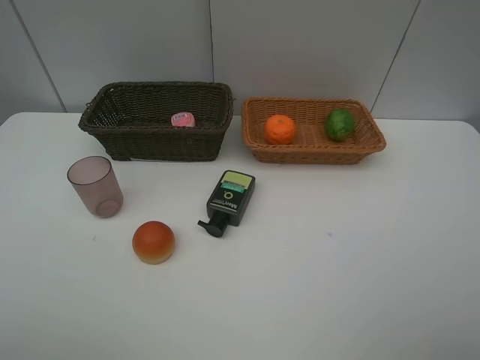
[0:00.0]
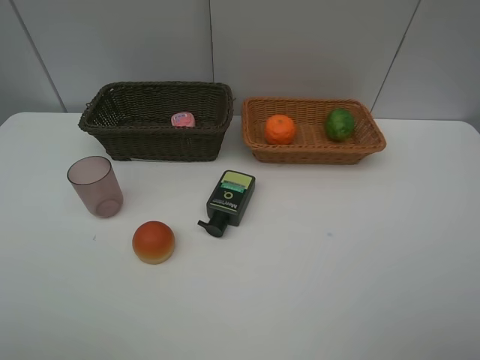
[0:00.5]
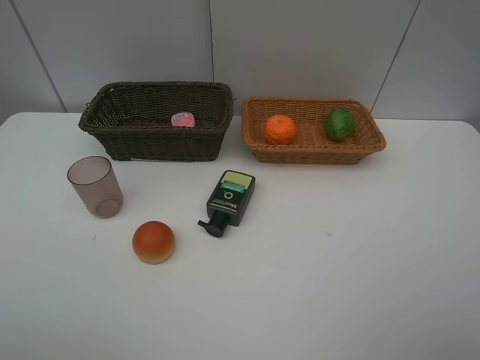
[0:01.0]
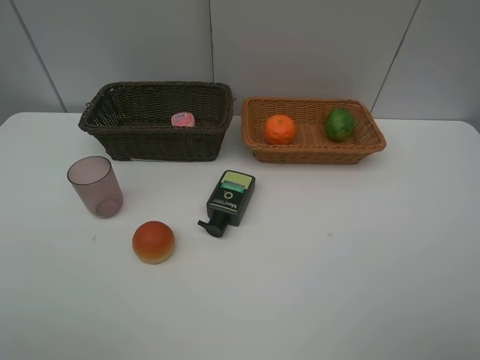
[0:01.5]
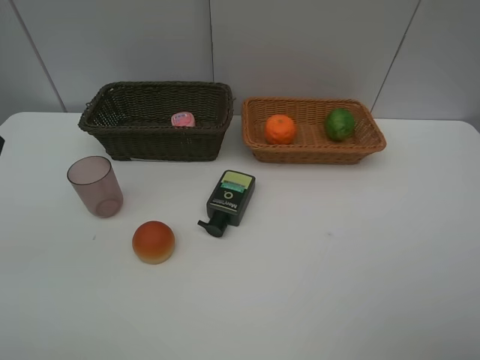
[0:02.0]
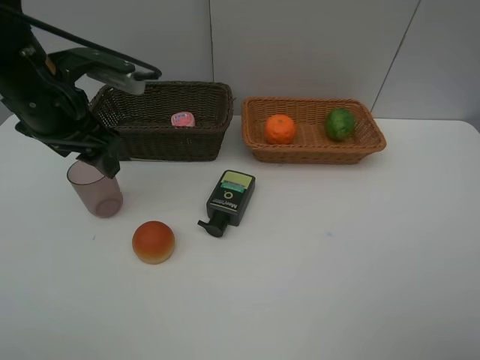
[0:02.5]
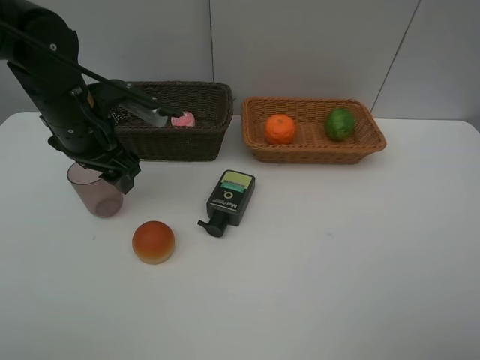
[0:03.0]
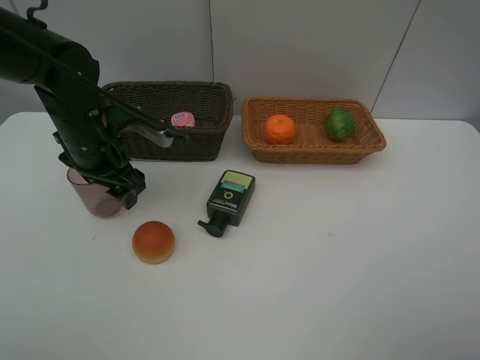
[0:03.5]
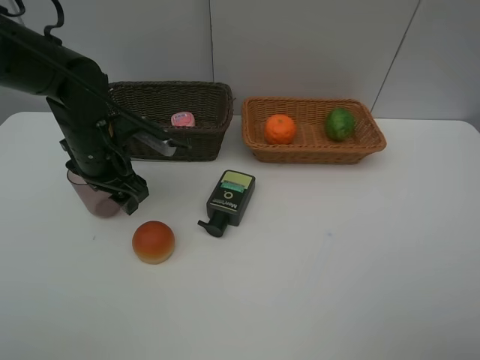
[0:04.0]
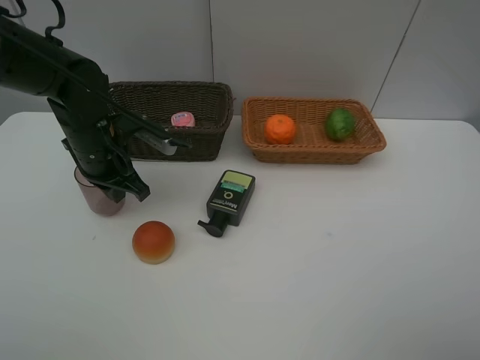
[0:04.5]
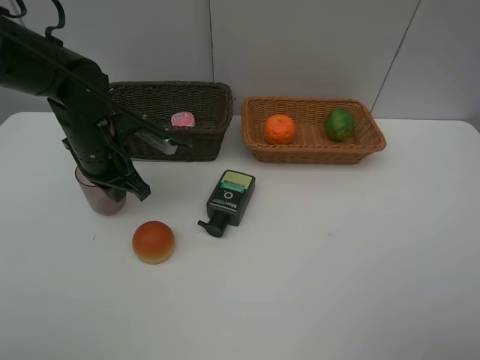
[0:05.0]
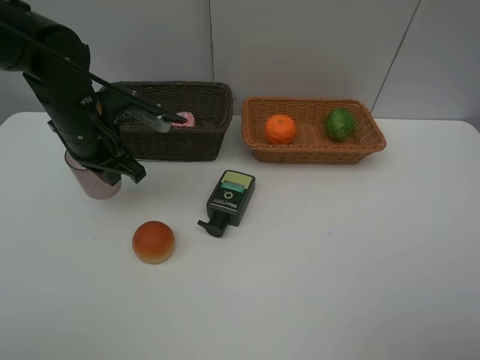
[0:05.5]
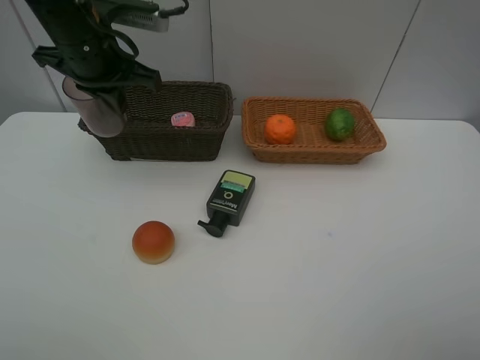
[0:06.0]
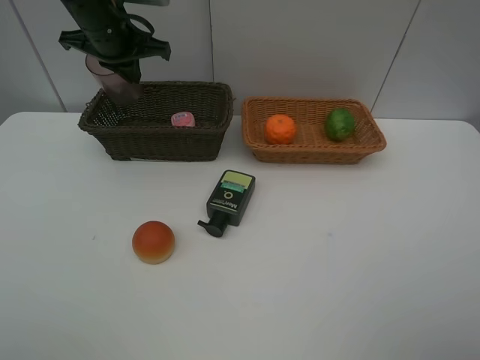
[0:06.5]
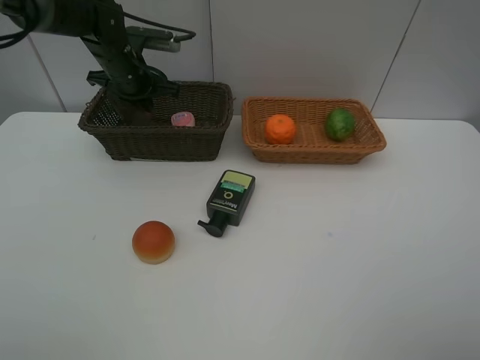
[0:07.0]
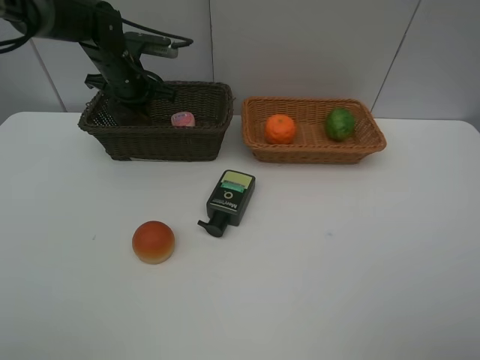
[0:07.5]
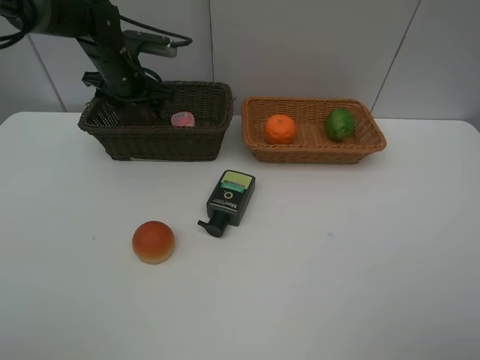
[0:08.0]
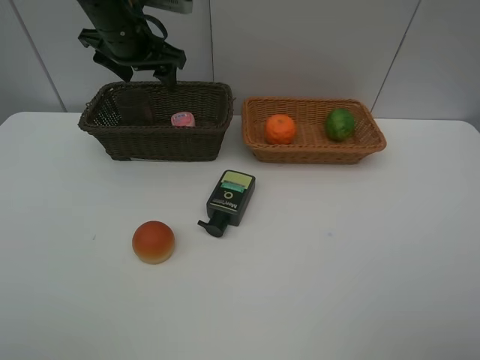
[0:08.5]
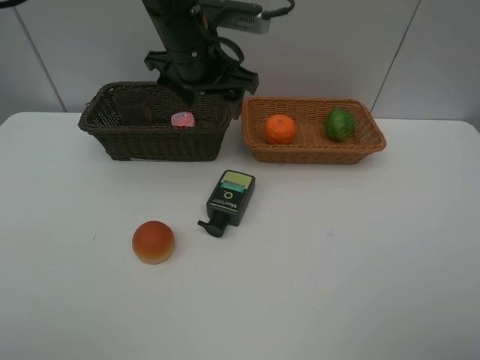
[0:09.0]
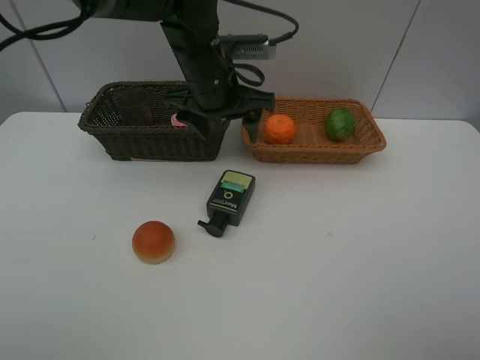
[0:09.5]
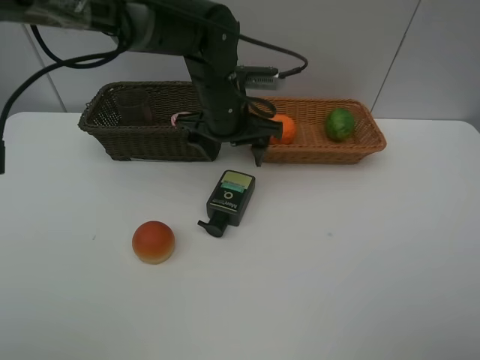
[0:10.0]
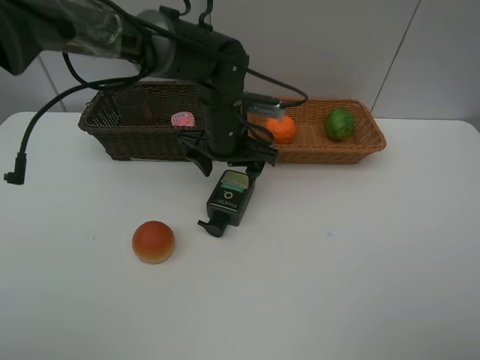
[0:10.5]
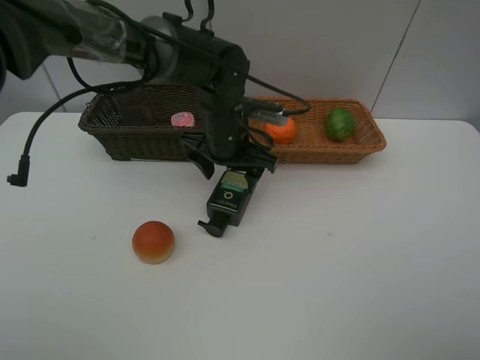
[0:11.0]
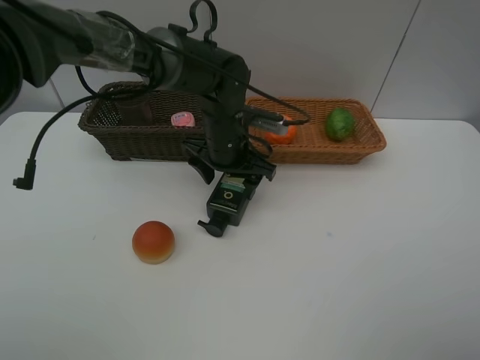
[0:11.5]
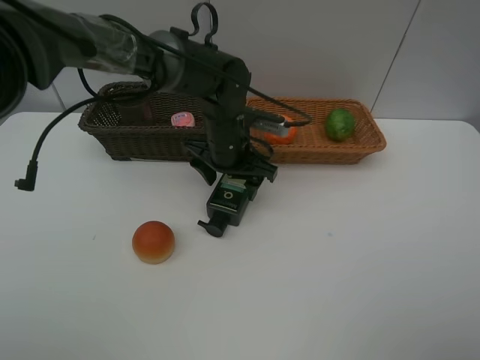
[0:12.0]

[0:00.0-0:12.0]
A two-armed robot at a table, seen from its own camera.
Task of the whole recording: place multiple objects separately in different baskets.
0:02.0 to 0:04.0: The left gripper is displaced downward, forward and to the right by roughly 25 cm.
0:04.0 to 0:06.0: The left gripper shifts approximately 15 cm upward, and closes its fingers.
0:06.0 to 0:08.0: The left gripper shifts roughly 15 cm forward and downward, and opens up.
0:08.0 to 0:10.0: The left gripper heads to the right and backward, covering about 20 cm.
0:10.0 to 0:12.0: The left gripper is displaced downward by about 5 cm.

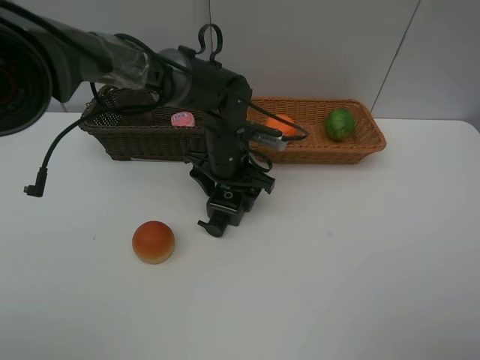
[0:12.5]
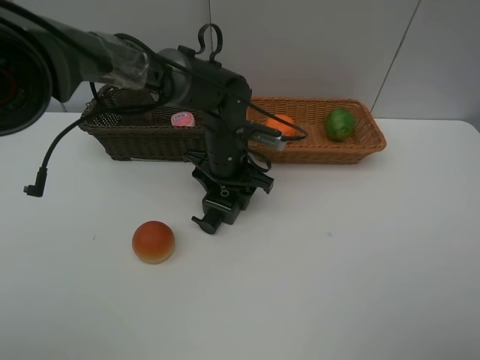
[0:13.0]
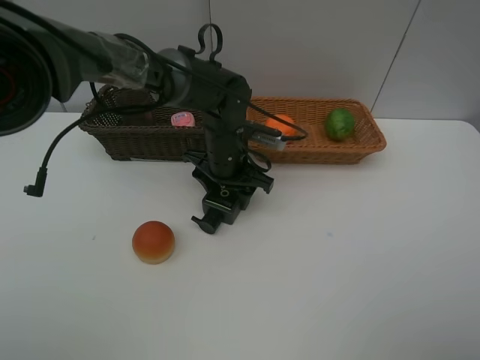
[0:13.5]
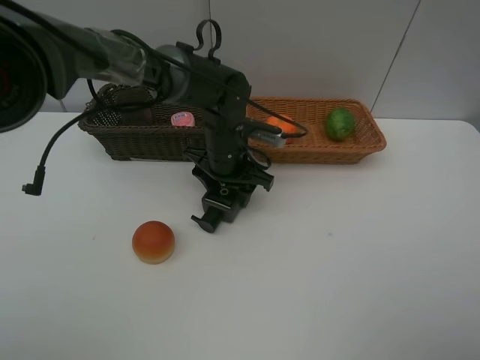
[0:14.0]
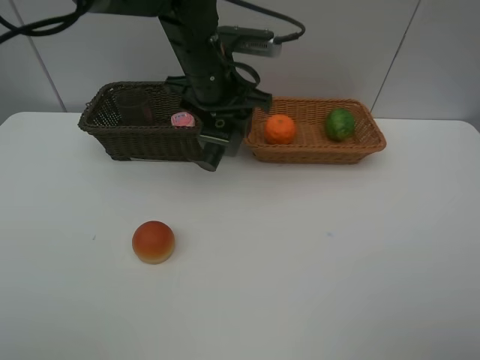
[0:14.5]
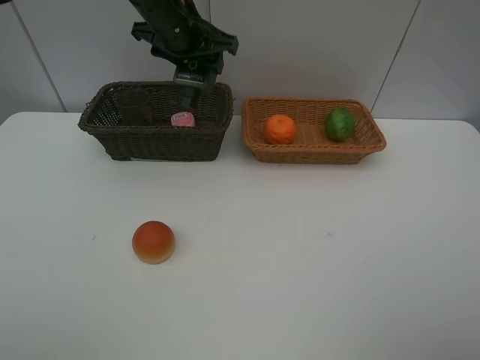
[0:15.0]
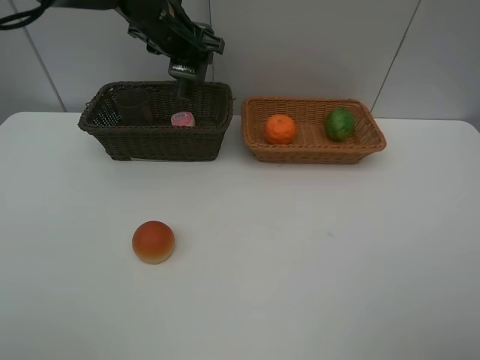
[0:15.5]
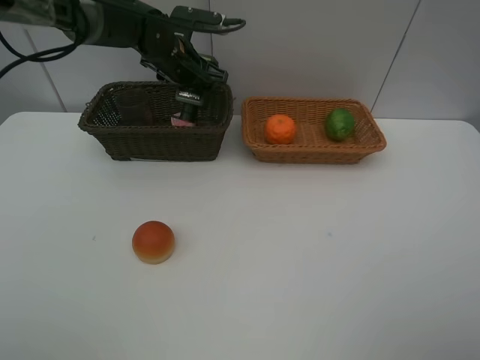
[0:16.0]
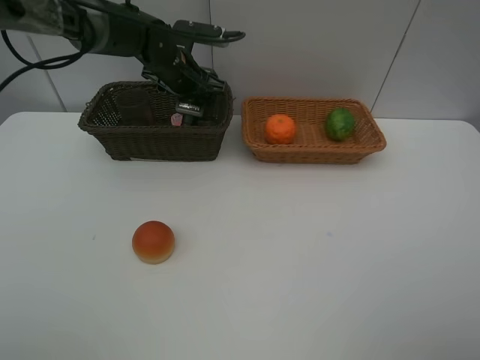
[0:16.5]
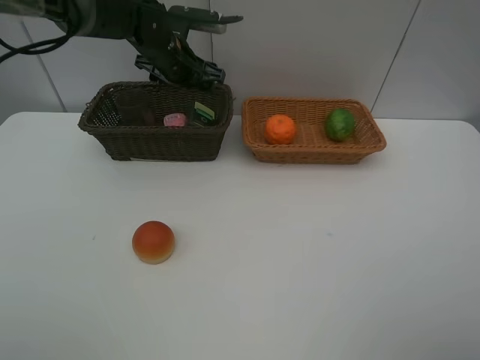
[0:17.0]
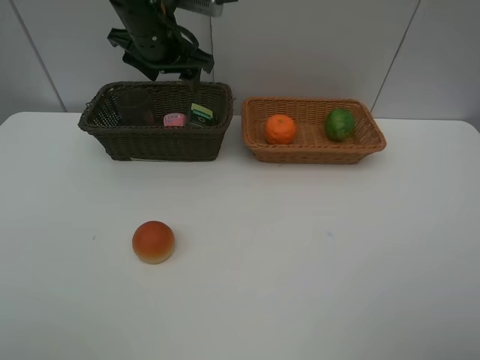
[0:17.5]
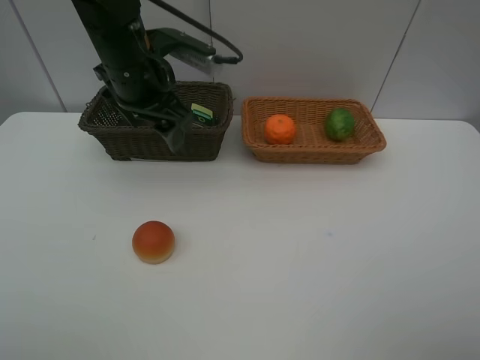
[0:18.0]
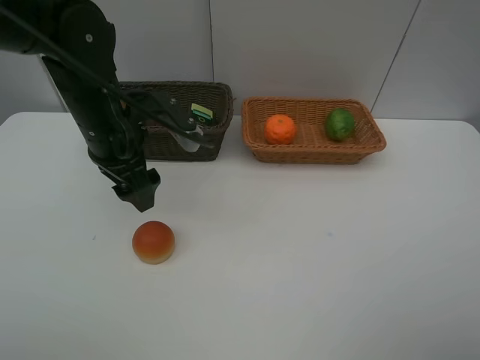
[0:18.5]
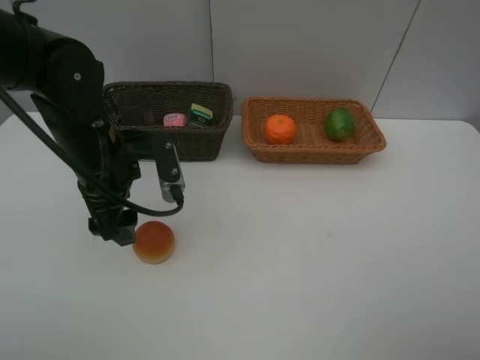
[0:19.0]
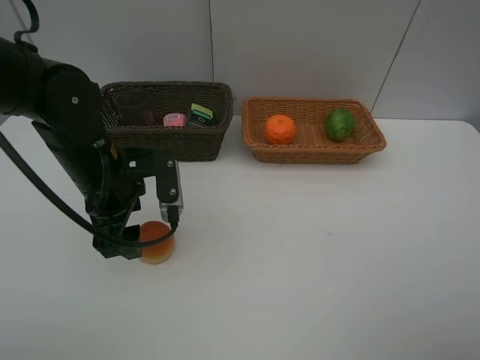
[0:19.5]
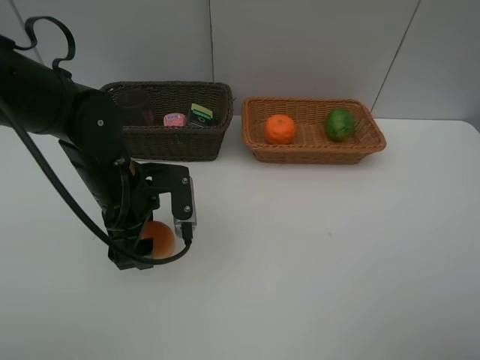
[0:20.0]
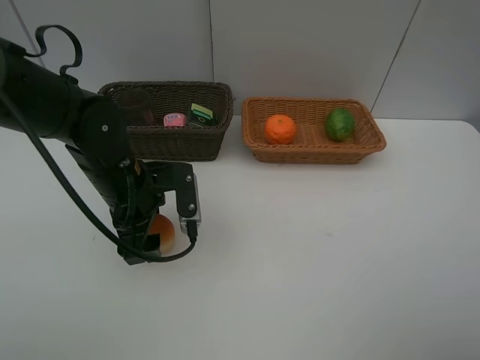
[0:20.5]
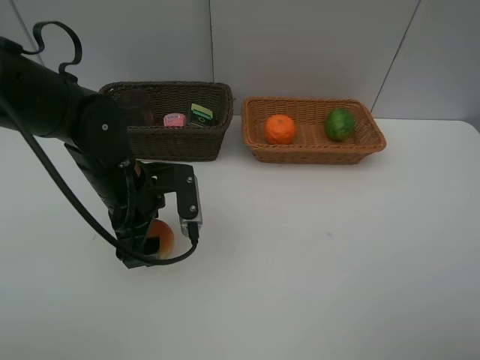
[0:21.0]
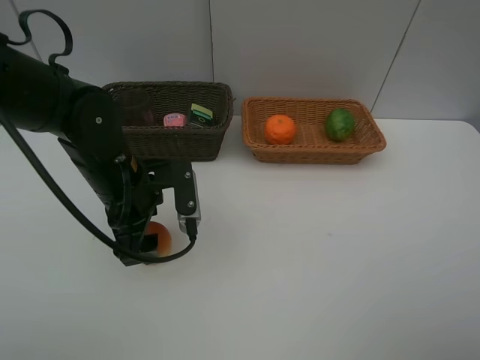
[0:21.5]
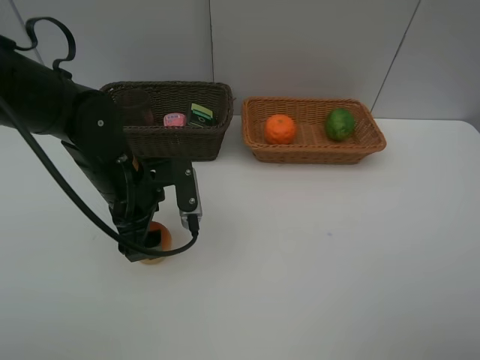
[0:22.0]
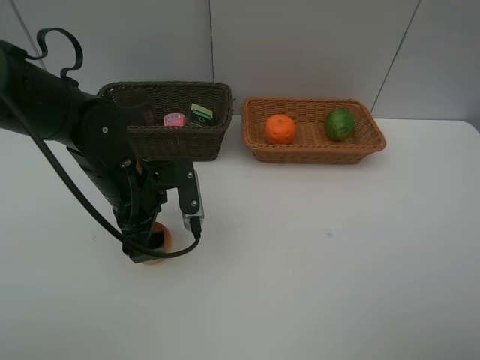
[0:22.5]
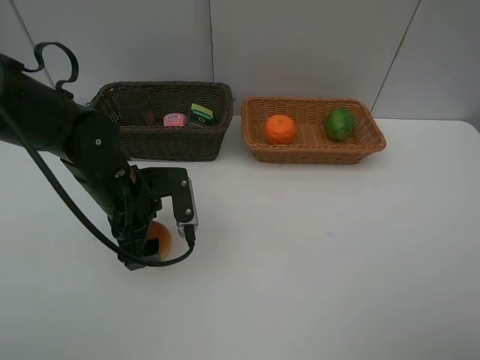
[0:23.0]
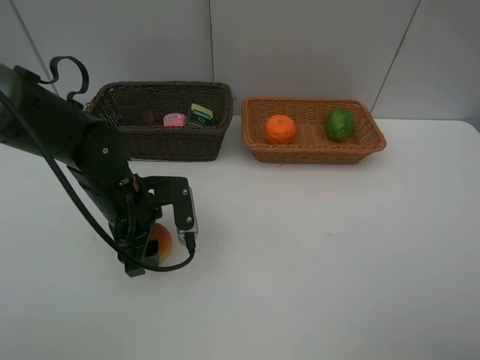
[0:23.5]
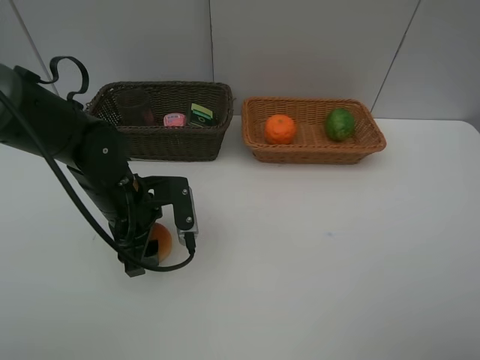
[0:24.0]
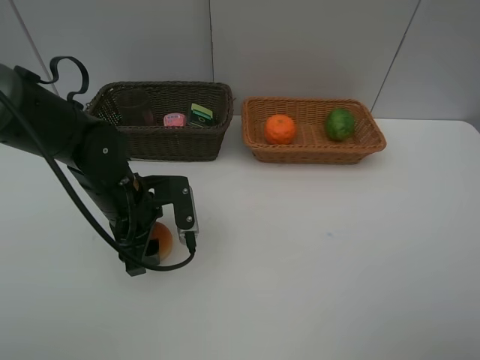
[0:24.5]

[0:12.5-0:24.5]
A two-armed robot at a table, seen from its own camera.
Task of the whole recording: place multiple objects separately in different baskets.
0:12.5 to 0:14.5: The left gripper is displaced upward by about 15 cm.
0:14.5 to 0:16.5: The left gripper goes approximately 15 cm forward, to the left and downward.
0:16.5 to 0:18.5: The left gripper heads backward, covering roughly 20 cm.
0:18.5 to 0:20.5: The left gripper shifts some 5 cm downward.
0:20.5 to 0:24.5: There are only small adjustments of the grippers.

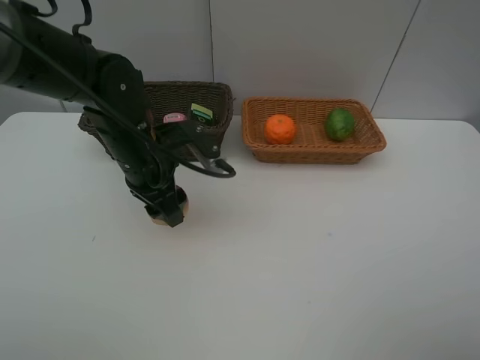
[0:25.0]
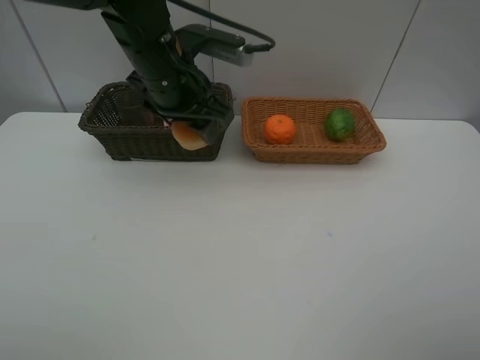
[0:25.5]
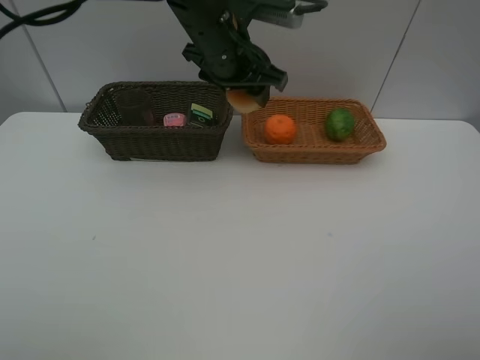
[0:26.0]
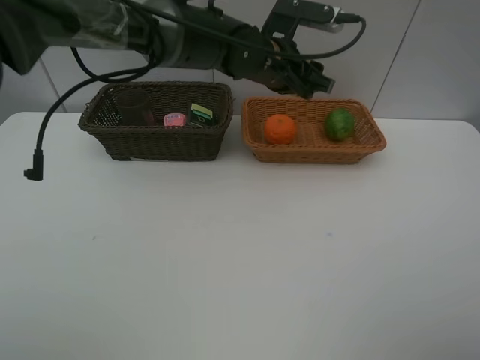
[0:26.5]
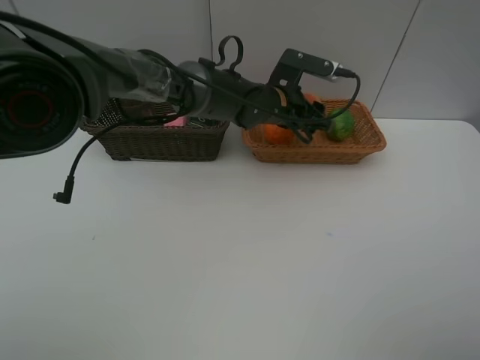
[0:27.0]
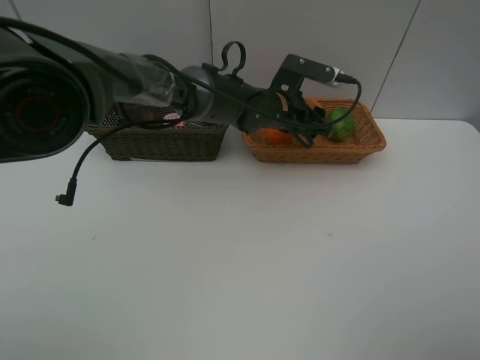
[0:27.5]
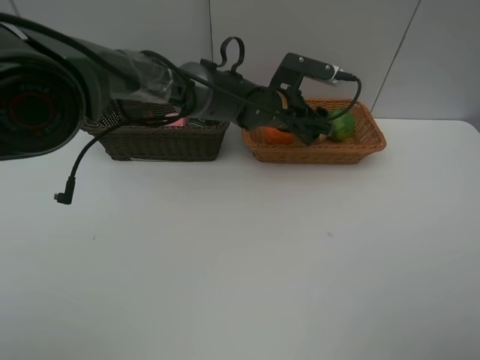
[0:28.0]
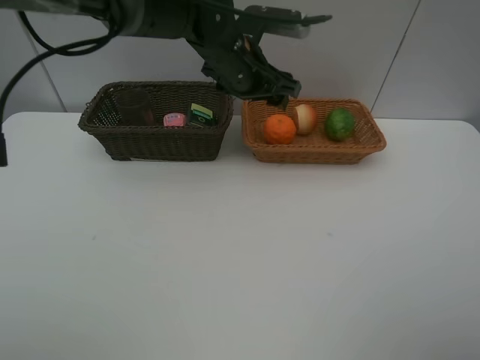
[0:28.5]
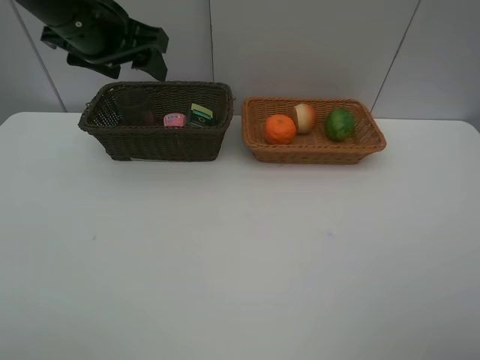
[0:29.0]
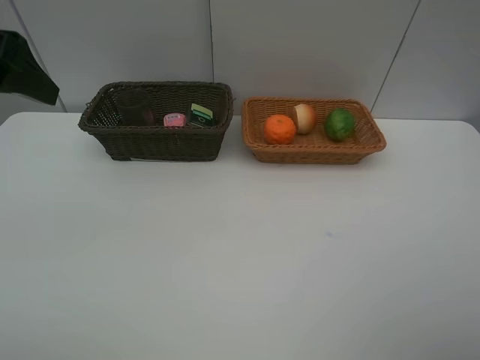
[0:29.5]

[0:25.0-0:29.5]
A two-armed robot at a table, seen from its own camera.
Task of the whole recording: place multiple objects separately in different baskets.
0:25.0 to 0:27.0: The left gripper is displaced to the right and forward by some 20 cm.
0:27.0 to 0:29.5: The left gripper travels to the left, upward and backward by roughly 40 cm.
